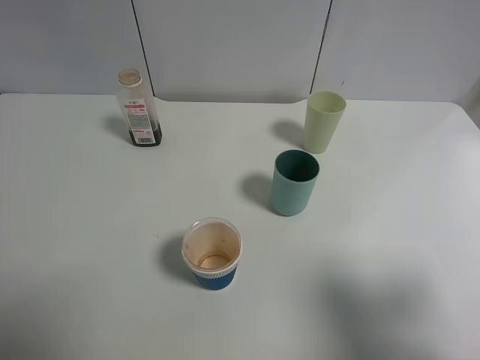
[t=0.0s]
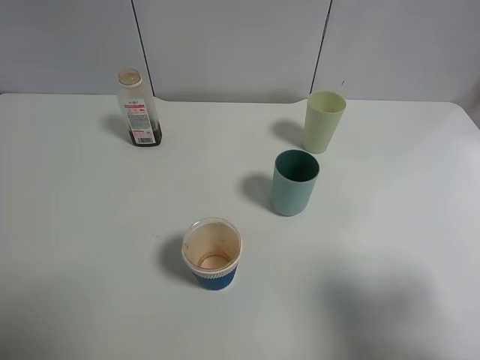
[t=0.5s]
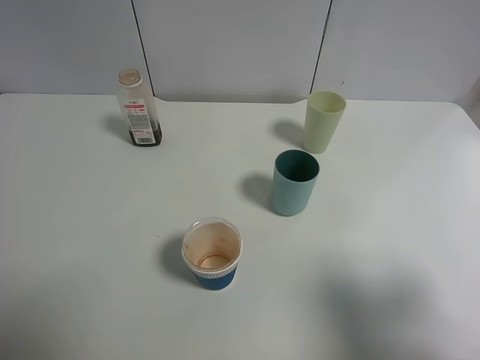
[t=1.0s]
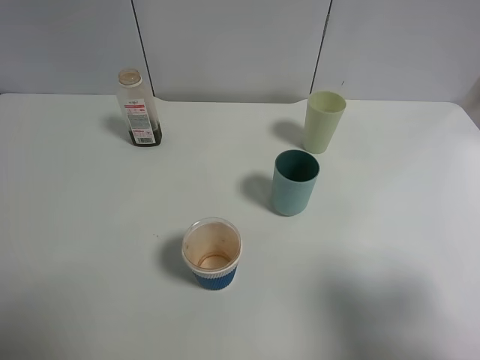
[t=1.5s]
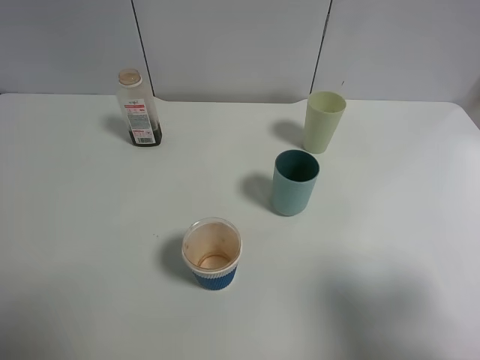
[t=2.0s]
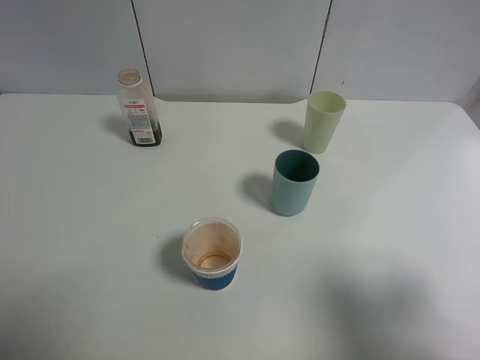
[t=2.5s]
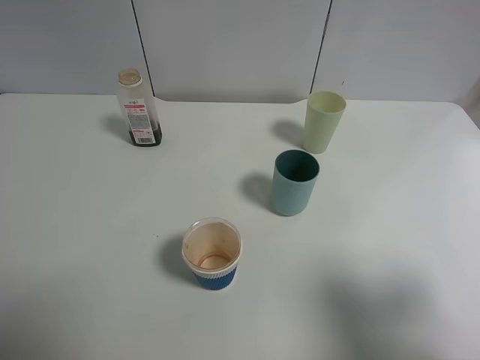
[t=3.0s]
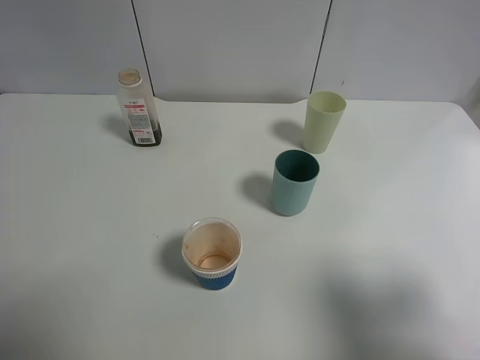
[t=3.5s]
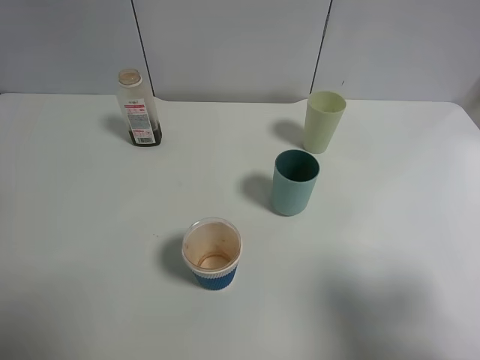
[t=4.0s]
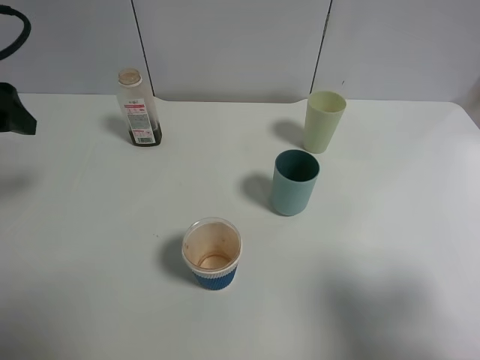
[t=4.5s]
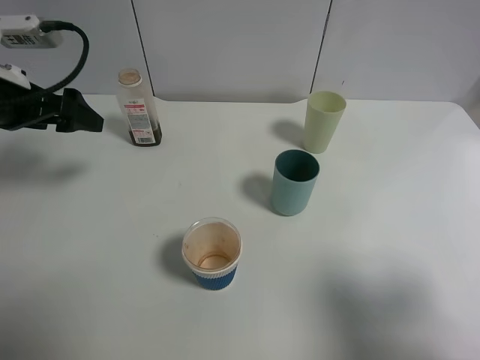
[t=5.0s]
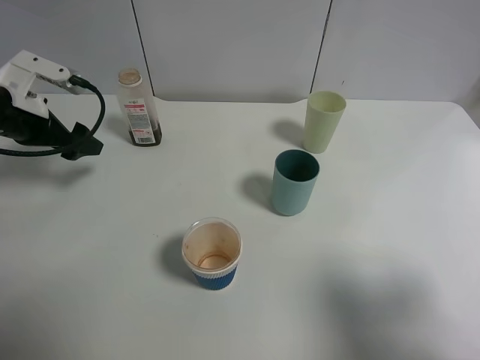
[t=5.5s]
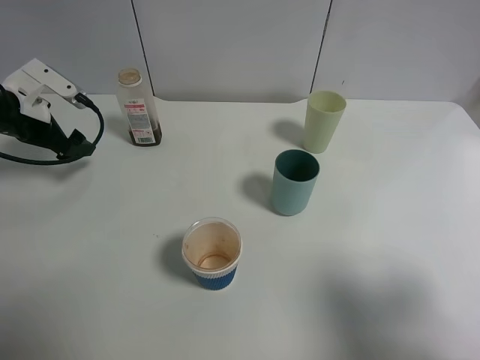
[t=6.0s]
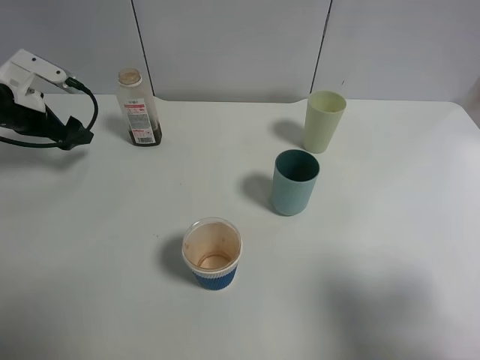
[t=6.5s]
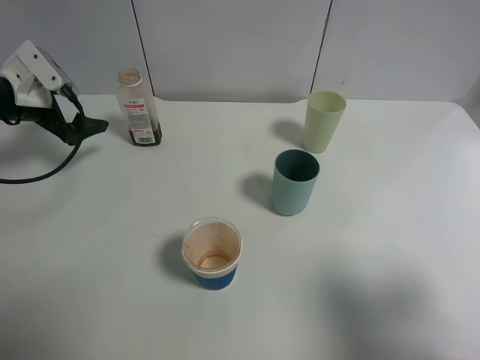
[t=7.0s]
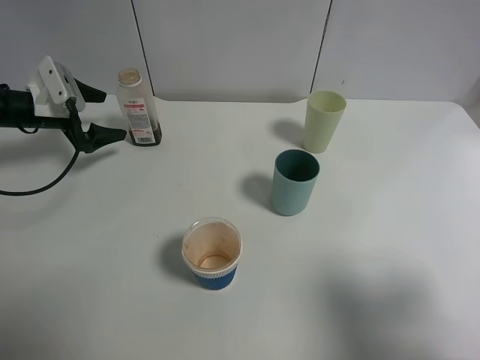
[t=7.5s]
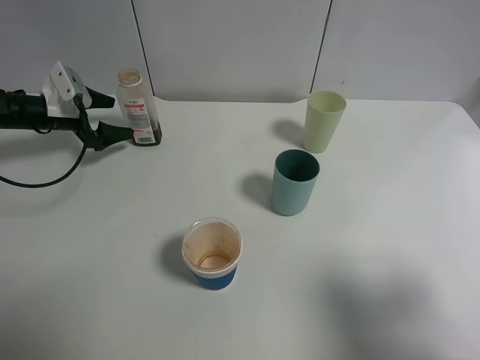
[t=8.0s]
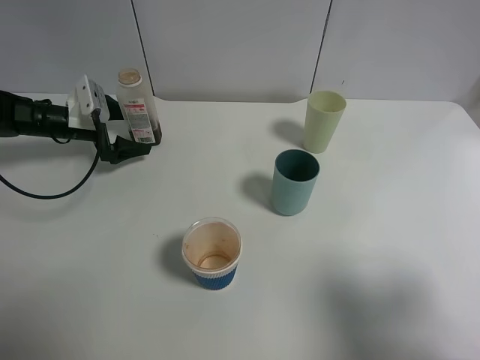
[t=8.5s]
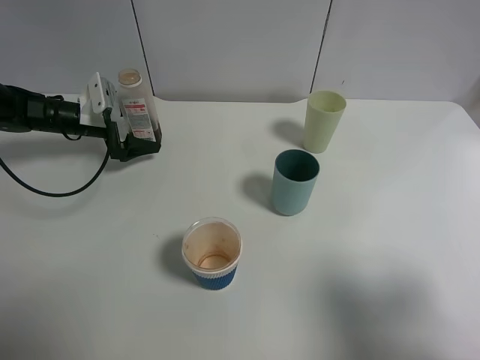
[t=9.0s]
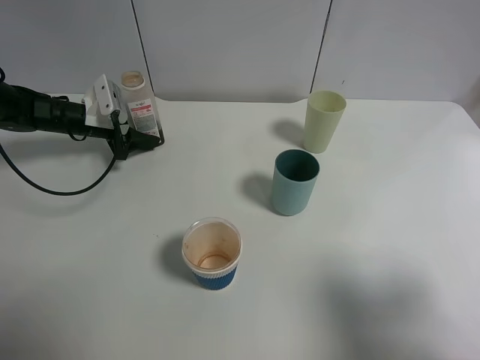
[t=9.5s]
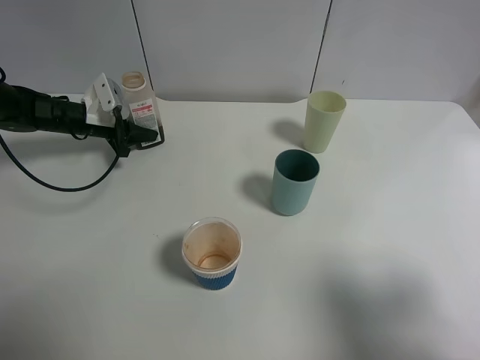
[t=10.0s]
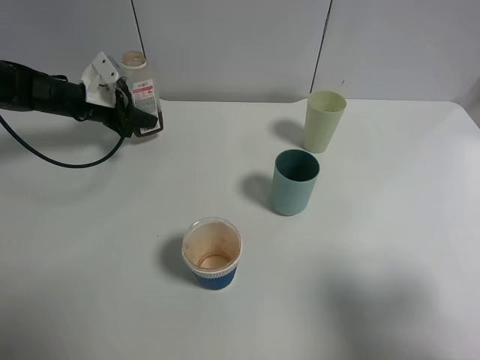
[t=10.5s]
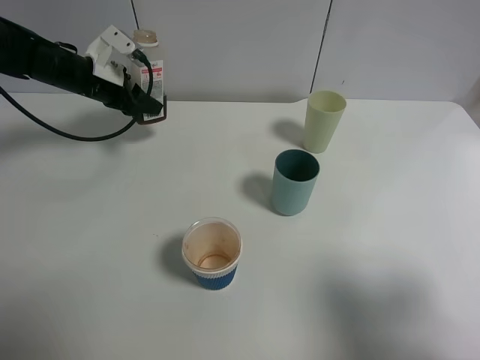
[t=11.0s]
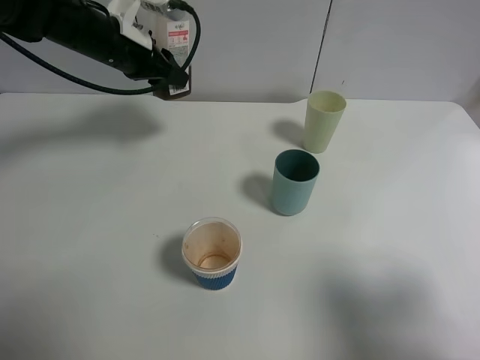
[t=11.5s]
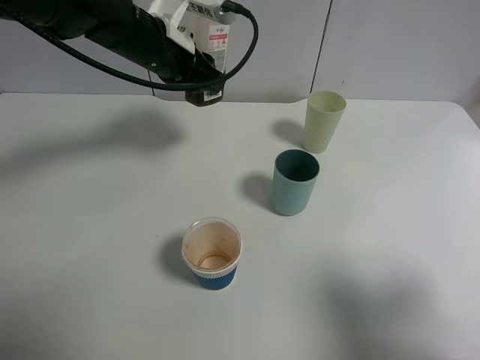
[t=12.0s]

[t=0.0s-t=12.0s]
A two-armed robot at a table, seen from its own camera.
Task of the whole recording: use a gripper to hold the bottle of the drink and pour it into a random cup.
Step, t=0.0s to t=10.0s: Grasp the cranberry juice bottle with the left gripper.
t=0.0s to t=2.0s: Both grippers stay put.
t=4.0s to t=6.0s: The left gripper travels forward and downward by about 25 cm.
t=6.0s to t=8.0s: The left gripper heads forward and downward, covering approximately 10 cm.
t=8.0s to t=10.0s: The left gripper goes approximately 5 cm to the right, and closes up.
t=10.0s to t=12.0s: The left gripper is displaced to the right and upward by some 25 cm.

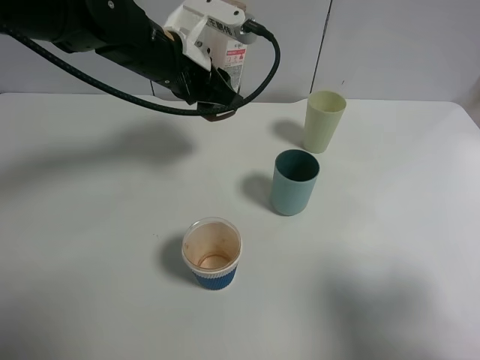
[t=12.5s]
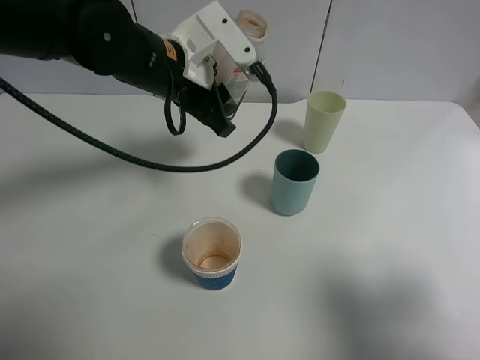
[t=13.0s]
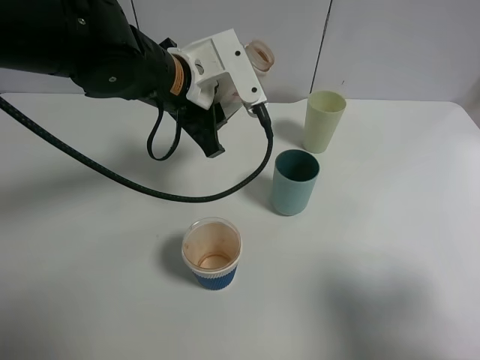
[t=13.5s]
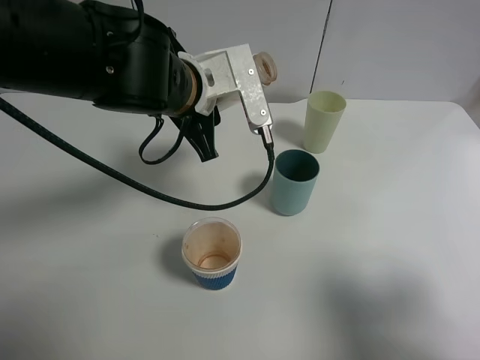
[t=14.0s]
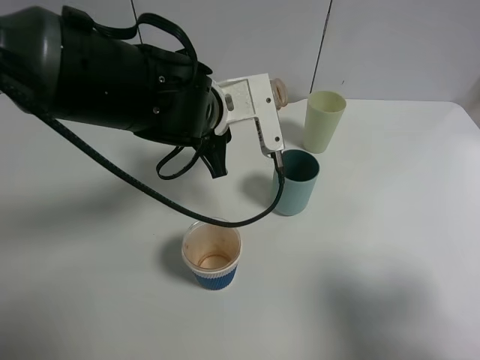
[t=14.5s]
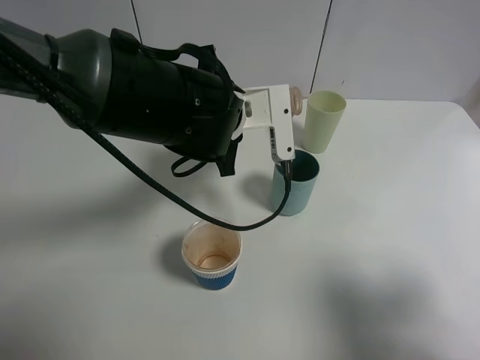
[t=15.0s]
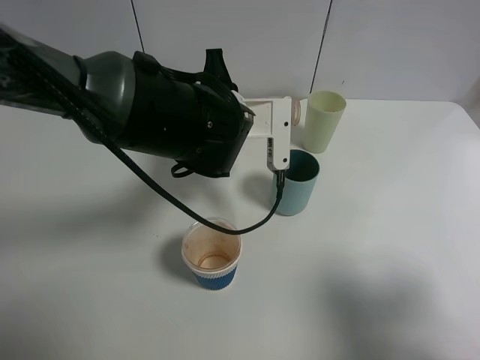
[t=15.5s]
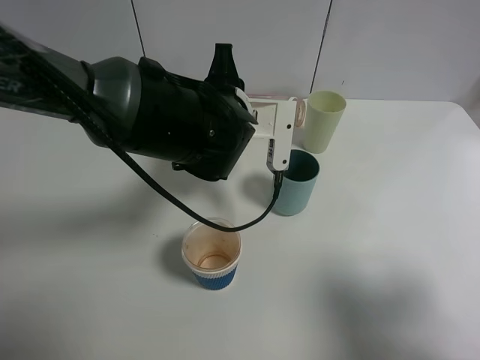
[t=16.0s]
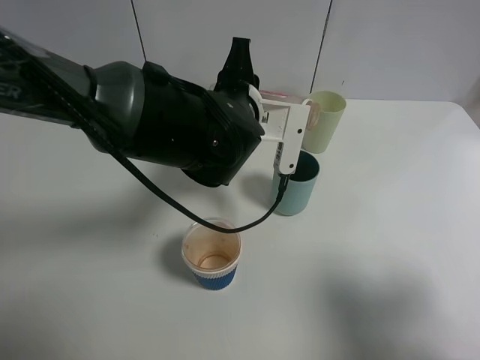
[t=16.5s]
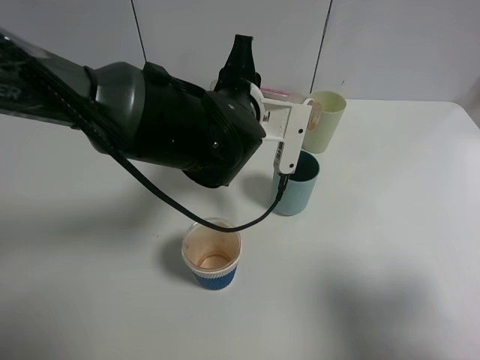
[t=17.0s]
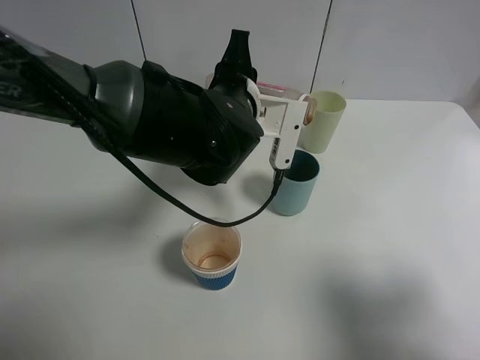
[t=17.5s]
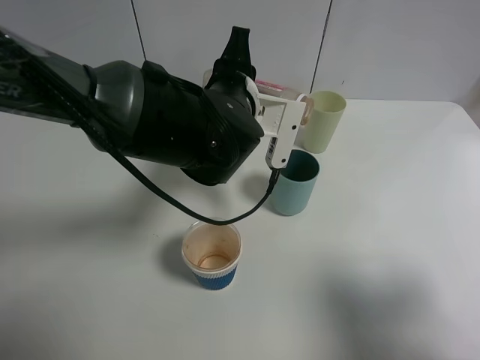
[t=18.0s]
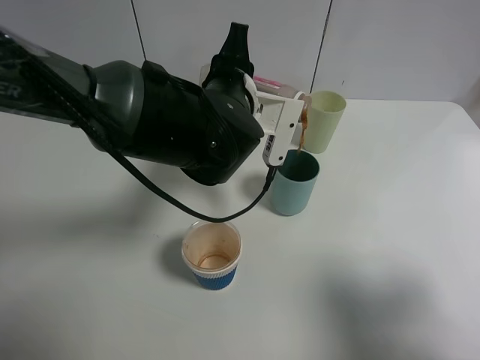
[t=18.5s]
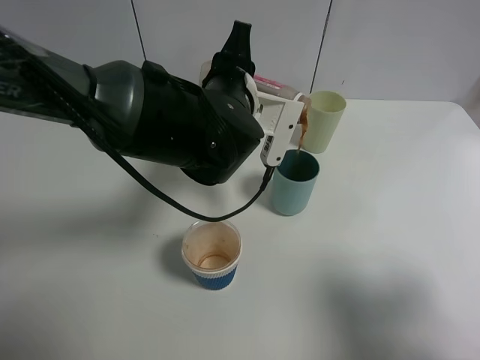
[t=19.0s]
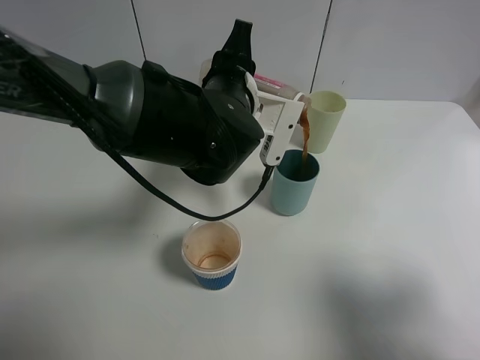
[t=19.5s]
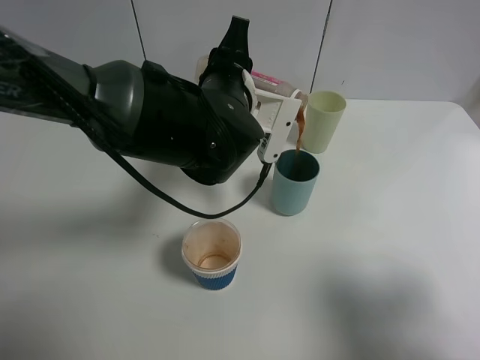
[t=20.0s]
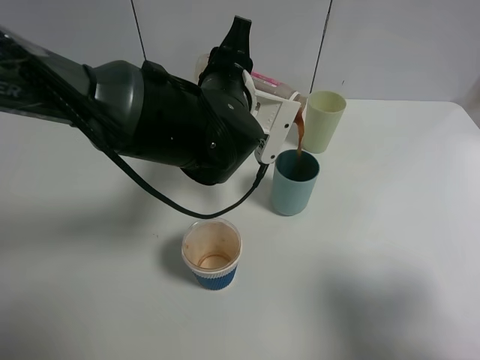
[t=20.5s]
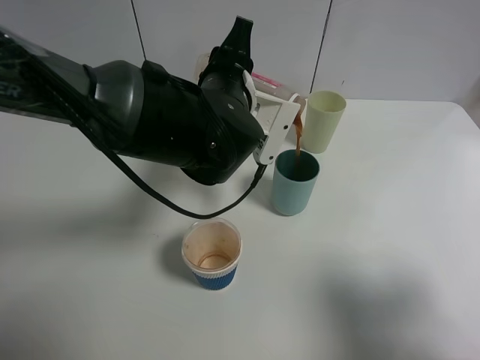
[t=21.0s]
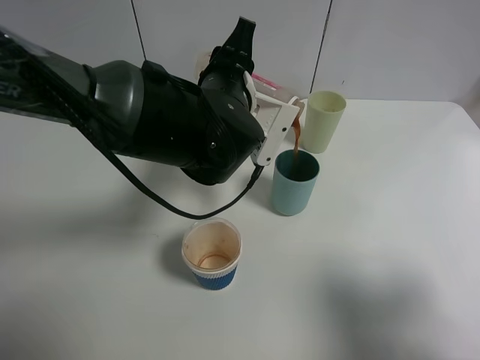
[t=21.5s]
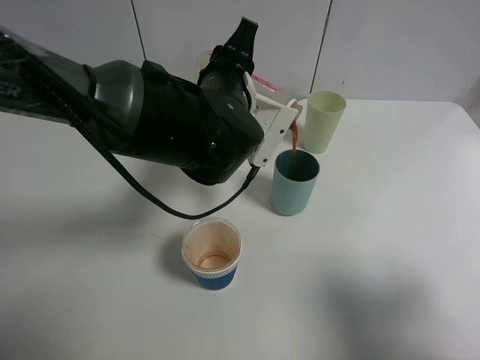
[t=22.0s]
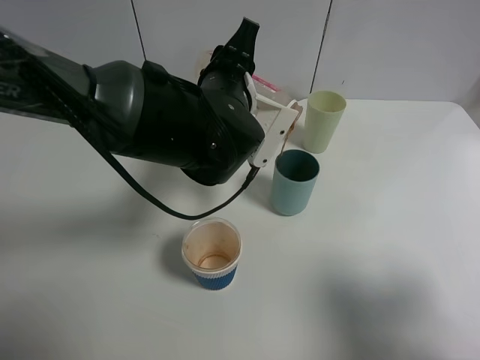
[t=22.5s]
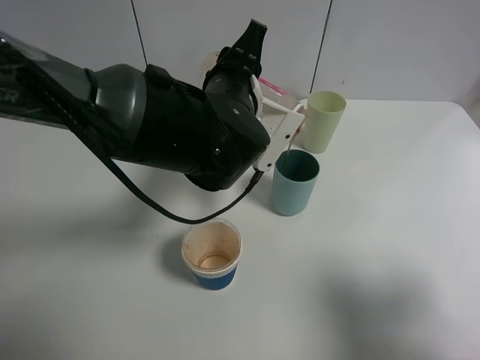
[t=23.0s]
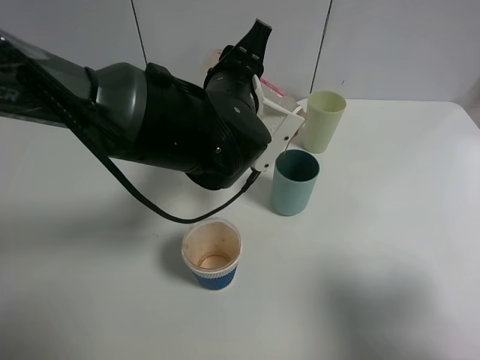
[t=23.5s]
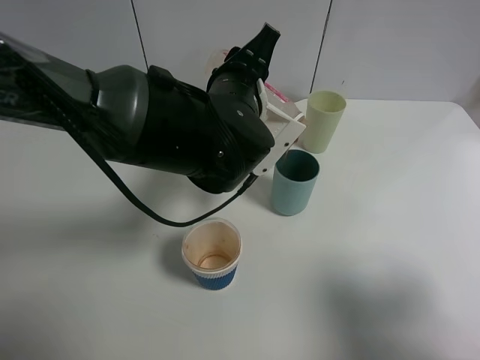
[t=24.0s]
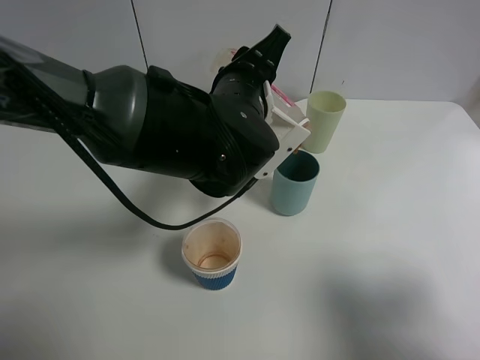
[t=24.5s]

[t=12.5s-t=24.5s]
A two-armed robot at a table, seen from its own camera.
Task of the whole recording: use a gripper to hold the bottle of the drink and pour it into a random cup.
t=12.5s to t=14.5s: The left gripper travels backward and to the right by approximately 10 cm.
t=16.5s to t=20.5s: The grippers stay close to where they were, moving slightly.
t=20.5s to t=24.5s: The grippers move only a little.

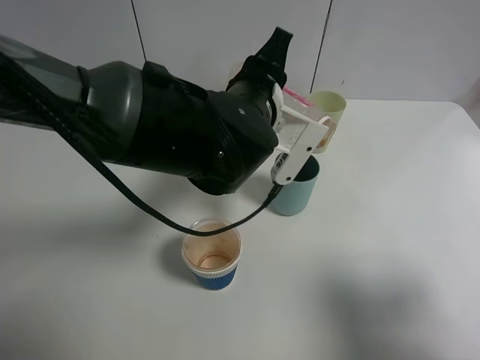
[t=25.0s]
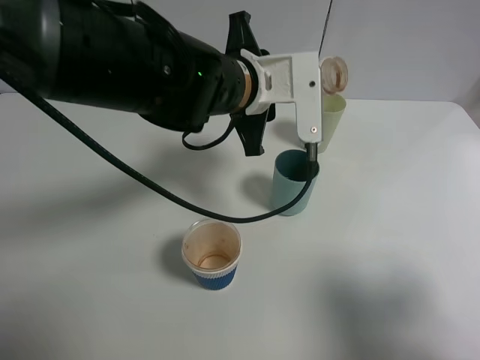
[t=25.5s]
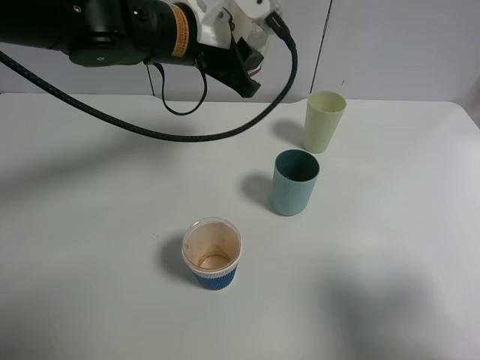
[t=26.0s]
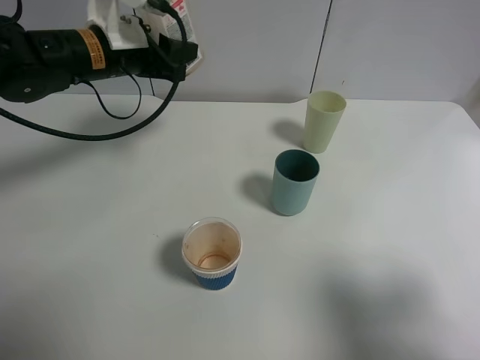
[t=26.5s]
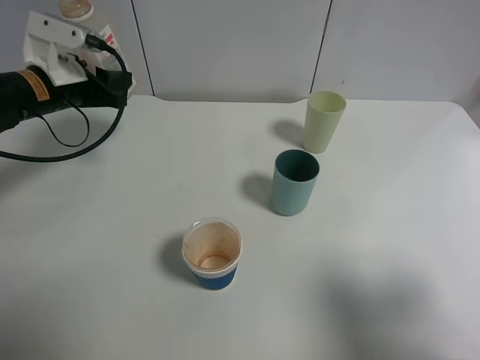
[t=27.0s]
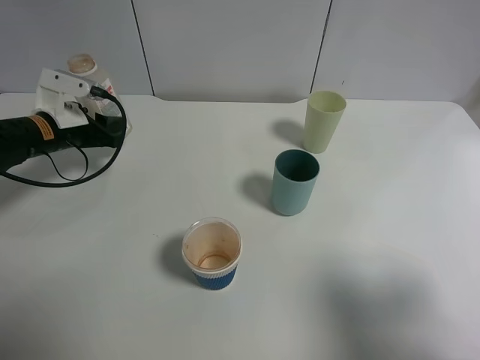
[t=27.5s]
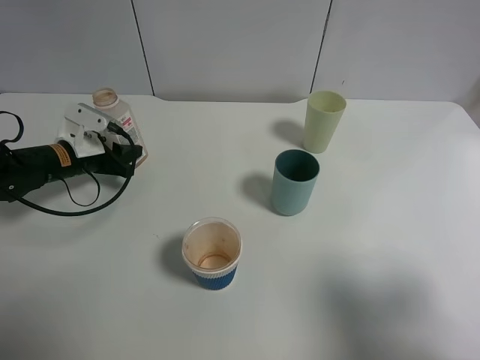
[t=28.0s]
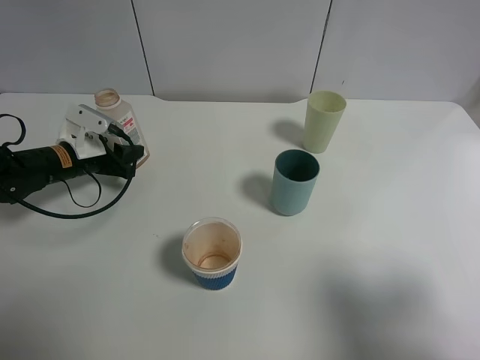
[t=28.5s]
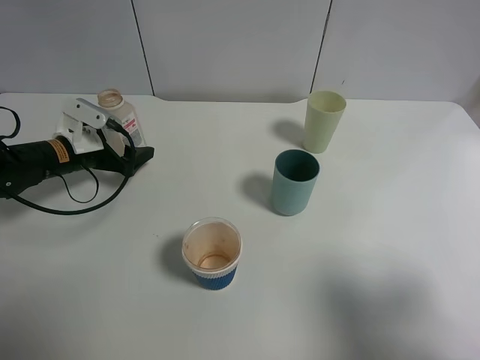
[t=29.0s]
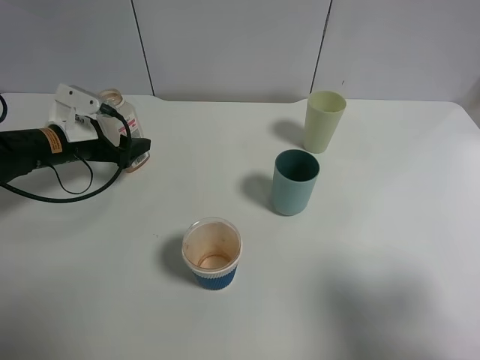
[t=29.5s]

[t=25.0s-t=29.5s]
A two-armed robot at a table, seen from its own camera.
Task of the whole recording: use a gripper to hold the bottle of the drink and pour it into a random cup.
t=25.0s to t=27.0s: The left gripper is displaced to the left by some 30 cm.
t=27.0s to t=29.5s: The left gripper goes approximately 10 cm downward, and opens.
